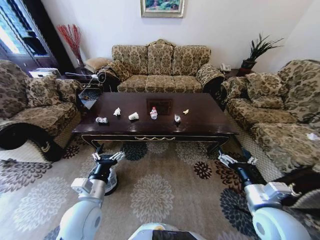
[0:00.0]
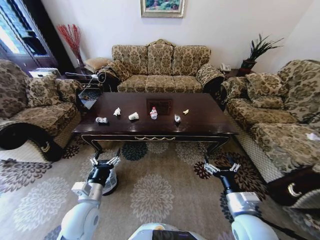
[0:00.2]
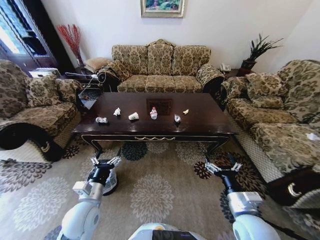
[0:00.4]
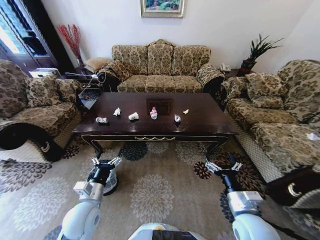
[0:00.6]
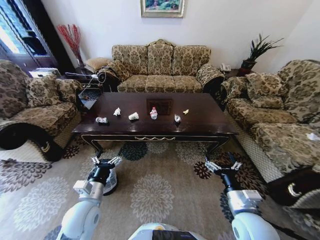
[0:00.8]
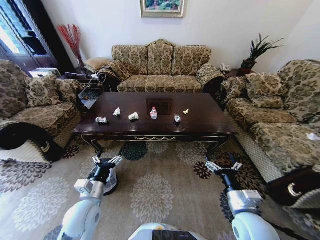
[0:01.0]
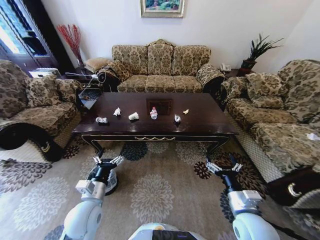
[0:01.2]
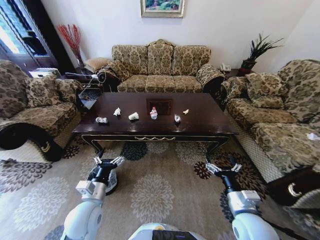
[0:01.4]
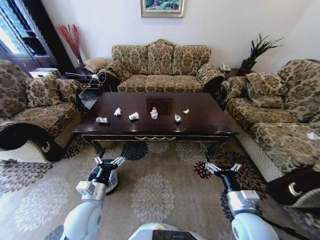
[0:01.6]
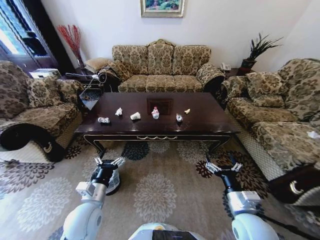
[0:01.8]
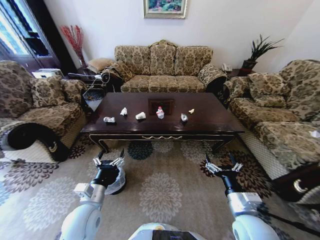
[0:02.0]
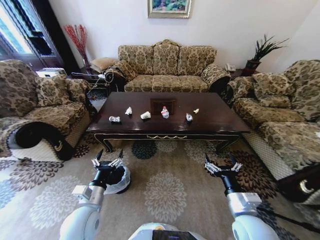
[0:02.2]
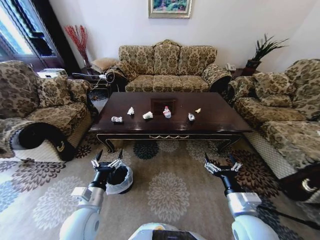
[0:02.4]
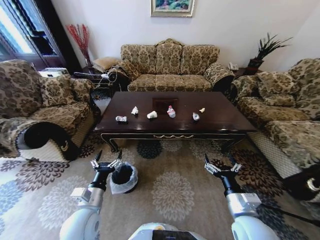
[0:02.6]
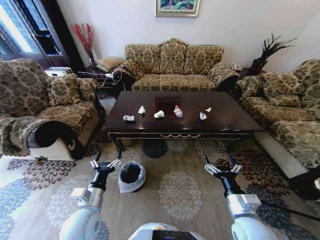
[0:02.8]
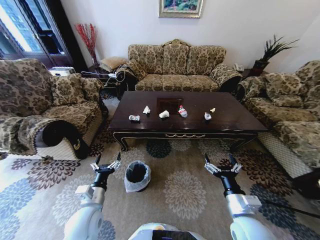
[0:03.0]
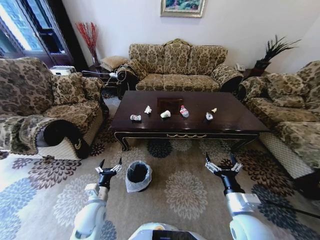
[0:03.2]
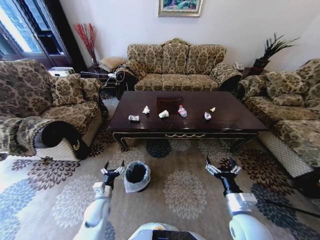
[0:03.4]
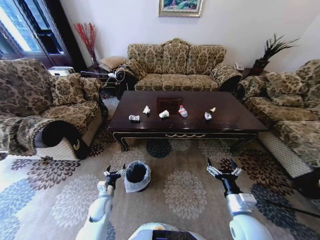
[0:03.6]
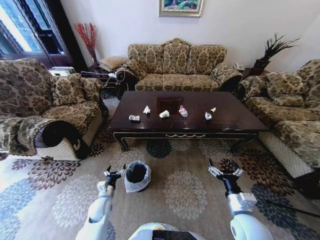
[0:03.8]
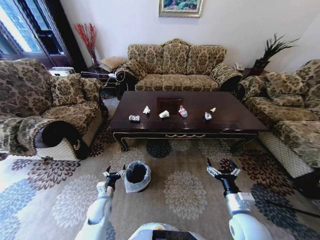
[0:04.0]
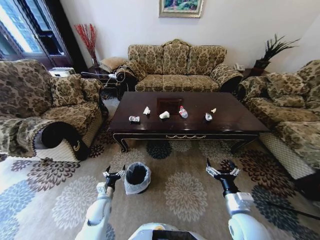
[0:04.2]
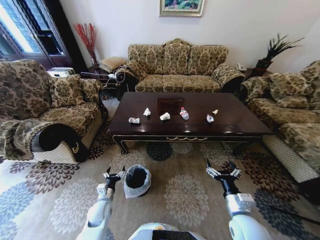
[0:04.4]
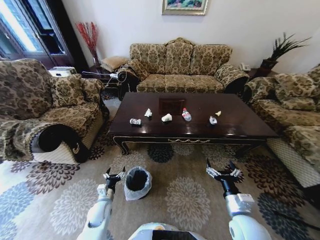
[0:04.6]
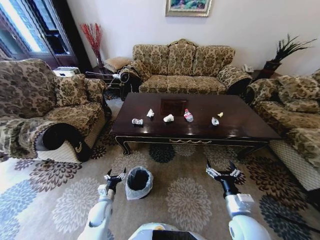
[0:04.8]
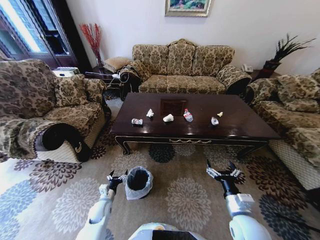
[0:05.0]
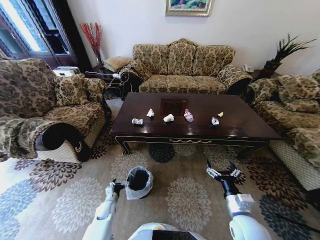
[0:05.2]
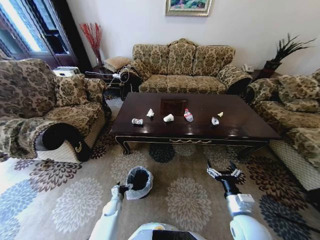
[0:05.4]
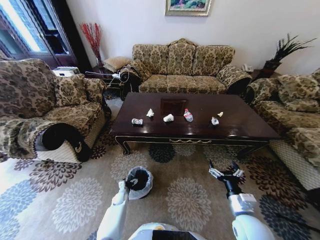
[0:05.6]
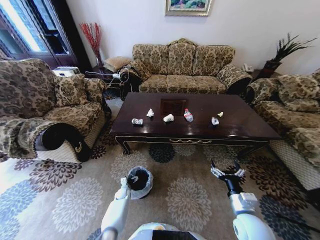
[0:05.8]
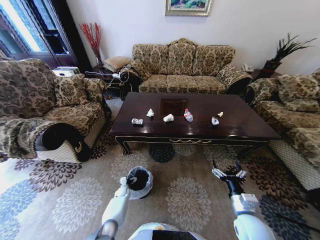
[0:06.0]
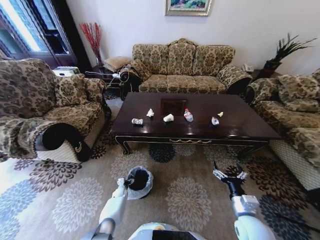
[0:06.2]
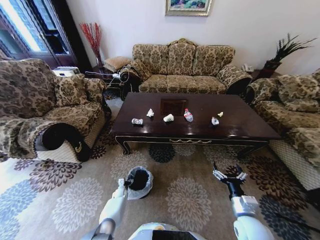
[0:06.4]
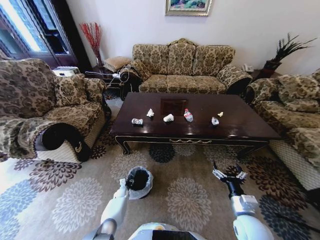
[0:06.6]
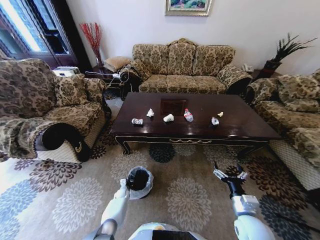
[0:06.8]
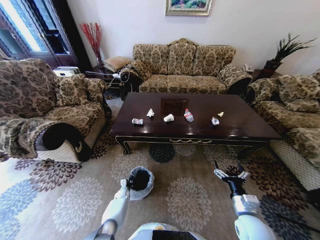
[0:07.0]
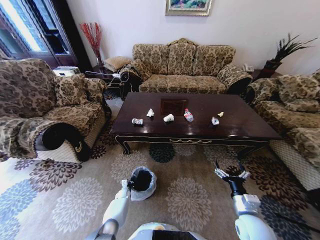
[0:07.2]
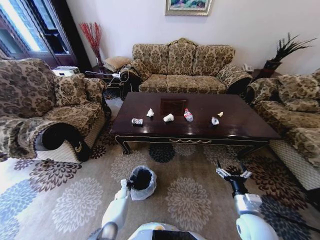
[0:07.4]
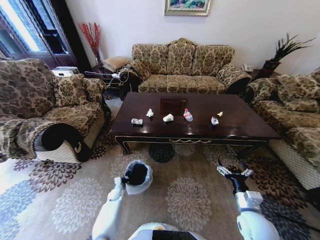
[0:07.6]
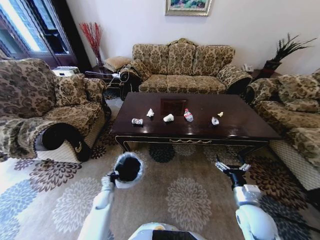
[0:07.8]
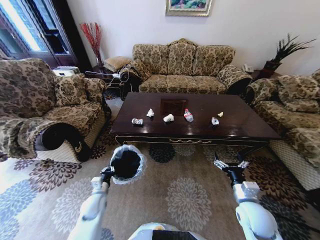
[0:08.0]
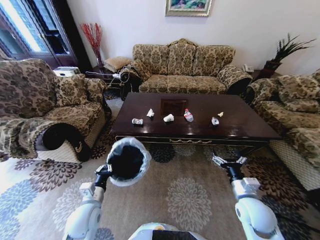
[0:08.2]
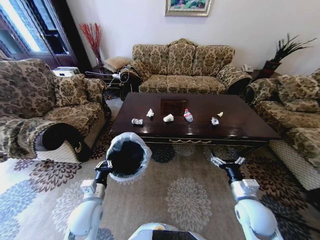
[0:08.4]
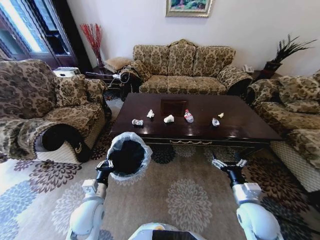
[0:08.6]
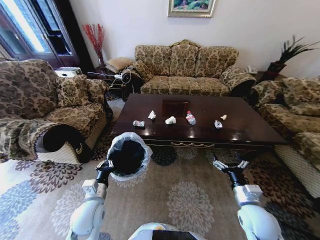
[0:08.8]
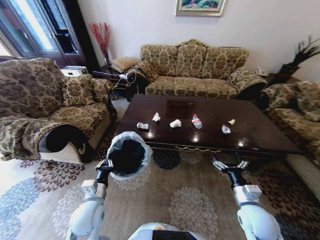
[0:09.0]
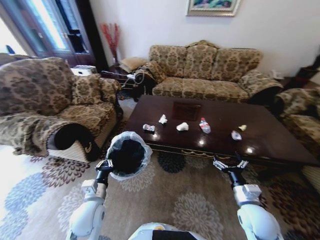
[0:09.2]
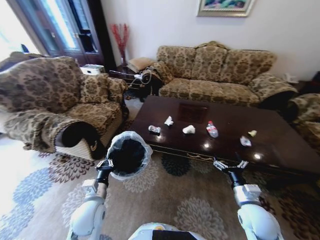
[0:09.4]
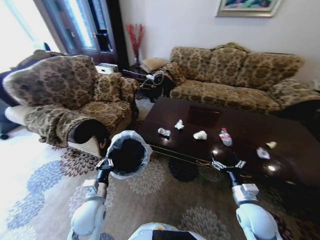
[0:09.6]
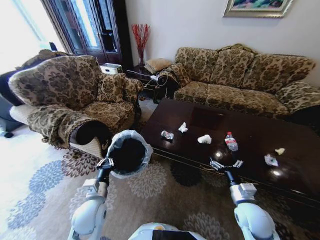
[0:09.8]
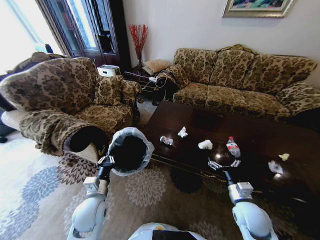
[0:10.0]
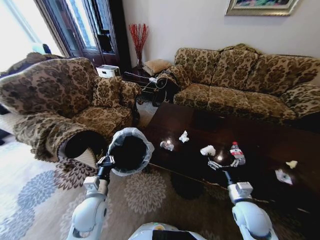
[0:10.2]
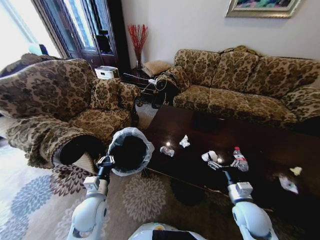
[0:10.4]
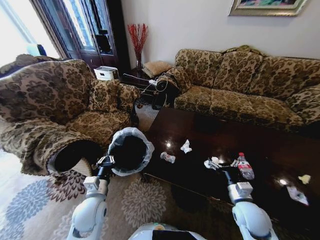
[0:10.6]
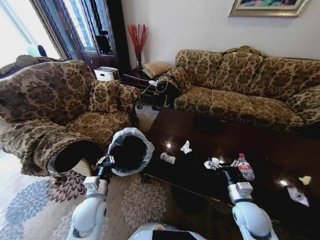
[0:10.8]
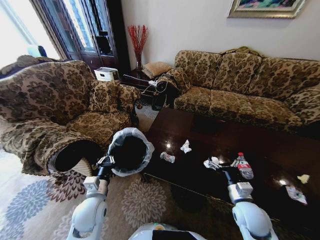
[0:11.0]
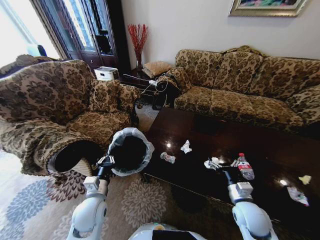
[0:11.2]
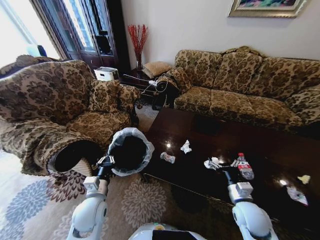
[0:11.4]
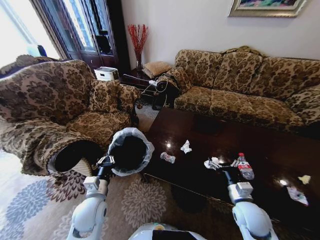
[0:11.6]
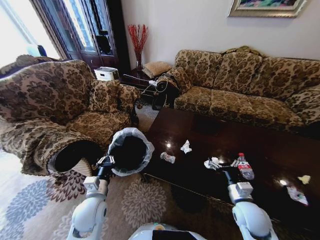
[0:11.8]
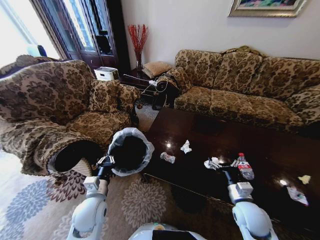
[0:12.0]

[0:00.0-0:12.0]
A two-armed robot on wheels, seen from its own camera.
Task of the whole recording: Move to the front of the table and place the trash on the table into the trash bin.
0:03.0 to 0:04.4: The left gripper shifts about 15 cm downward.
0:04.4 to 0:06.0: The left gripper goes about 25 cm downward and forward.
0:06.0 to 0:07.6: The left gripper changes place by some 5 cm, and closes its fingers.
0:07.6 to 0:09.0: The left gripper travels upward and backward by roughly 35 cm.
0:10.4 to 0:12.0: Neither gripper changes place.

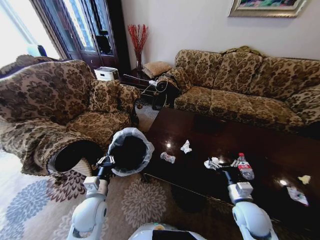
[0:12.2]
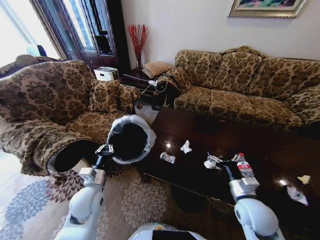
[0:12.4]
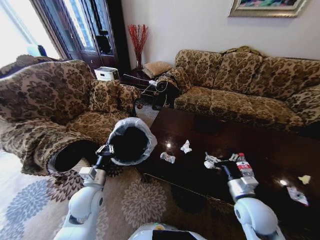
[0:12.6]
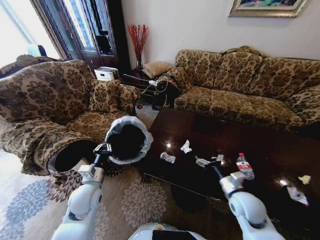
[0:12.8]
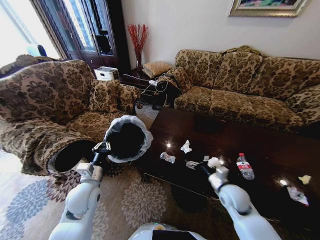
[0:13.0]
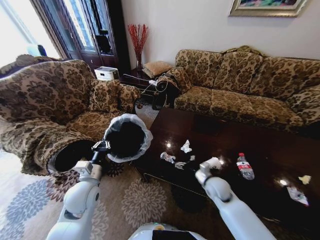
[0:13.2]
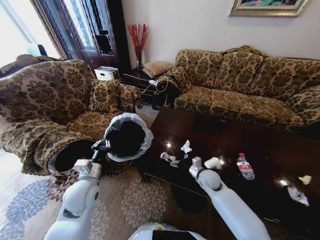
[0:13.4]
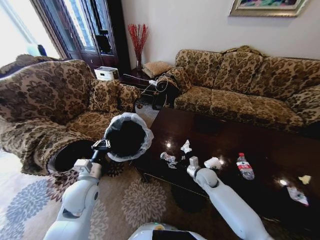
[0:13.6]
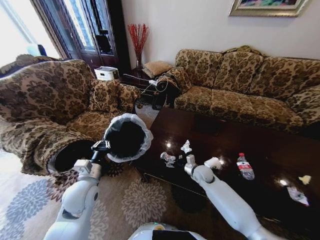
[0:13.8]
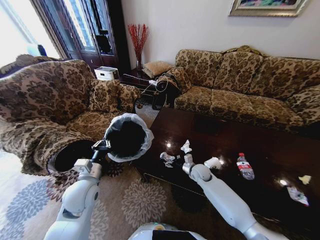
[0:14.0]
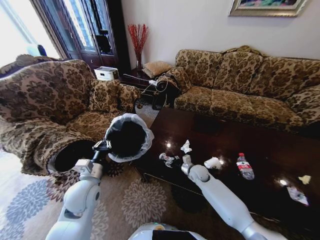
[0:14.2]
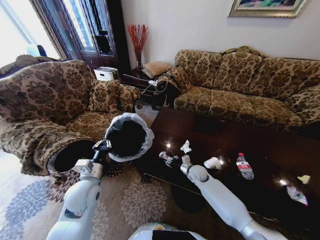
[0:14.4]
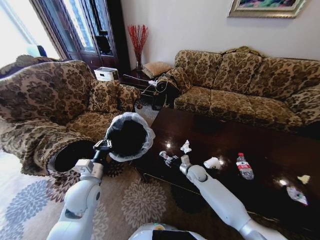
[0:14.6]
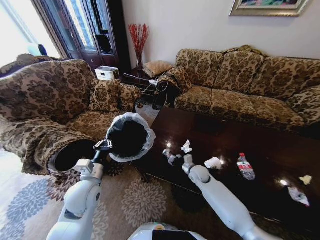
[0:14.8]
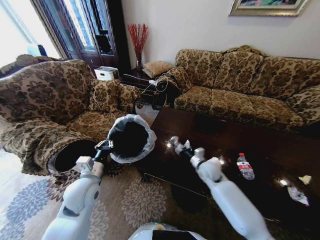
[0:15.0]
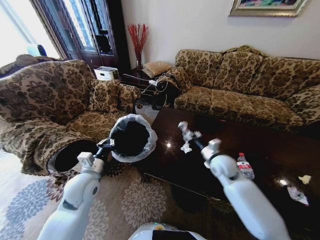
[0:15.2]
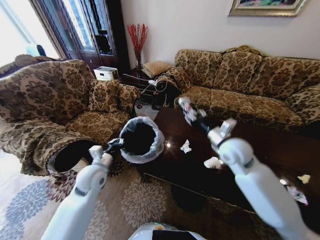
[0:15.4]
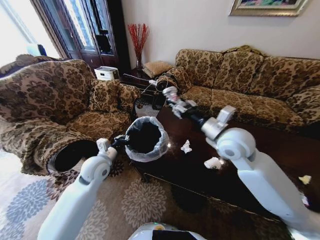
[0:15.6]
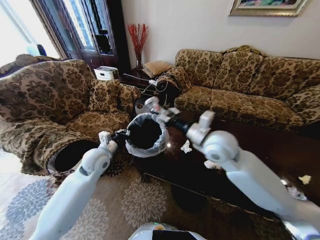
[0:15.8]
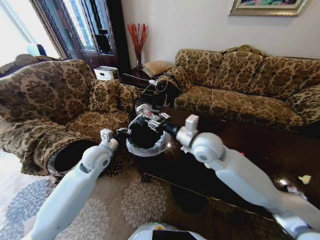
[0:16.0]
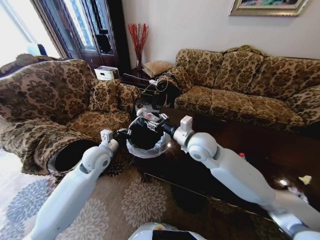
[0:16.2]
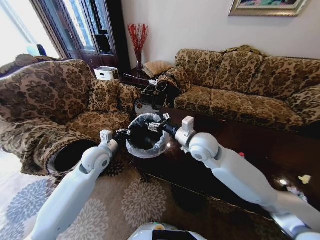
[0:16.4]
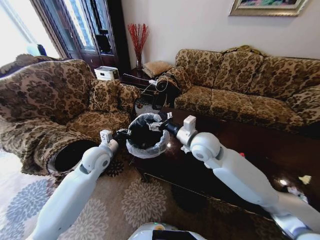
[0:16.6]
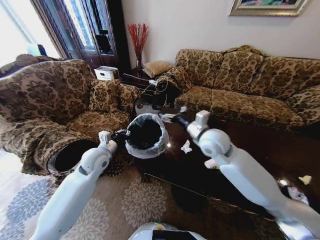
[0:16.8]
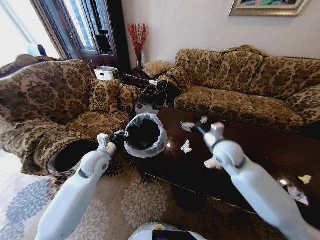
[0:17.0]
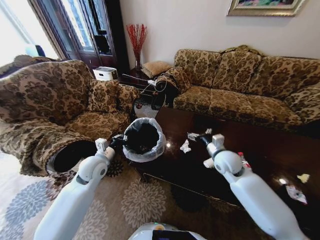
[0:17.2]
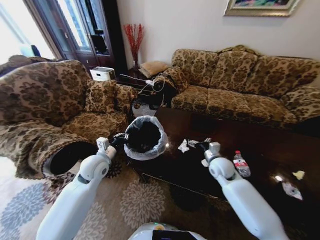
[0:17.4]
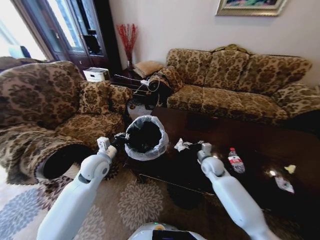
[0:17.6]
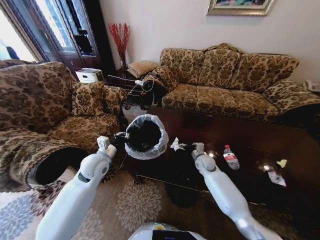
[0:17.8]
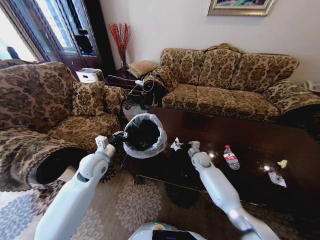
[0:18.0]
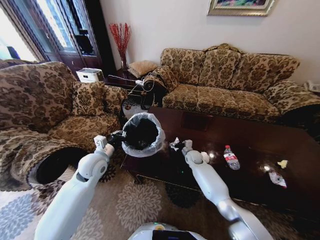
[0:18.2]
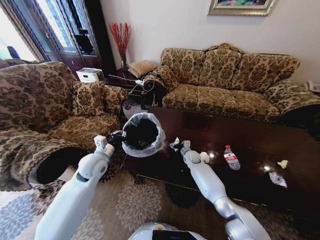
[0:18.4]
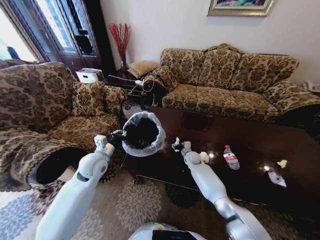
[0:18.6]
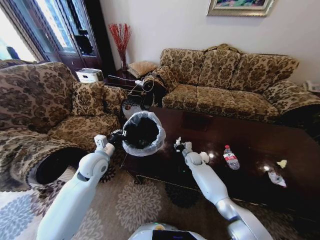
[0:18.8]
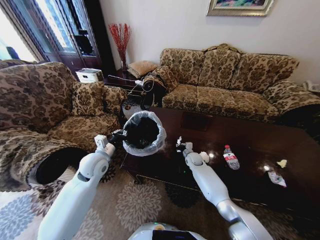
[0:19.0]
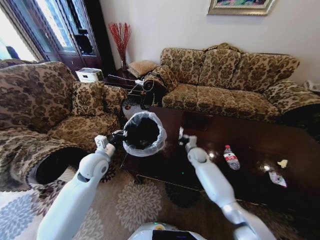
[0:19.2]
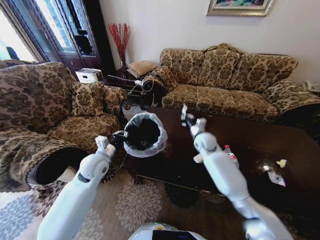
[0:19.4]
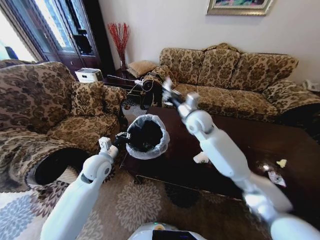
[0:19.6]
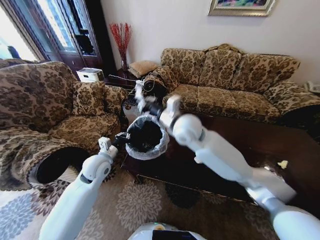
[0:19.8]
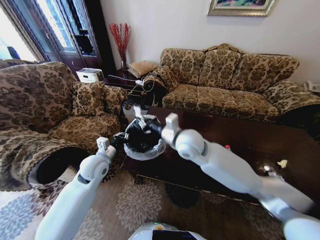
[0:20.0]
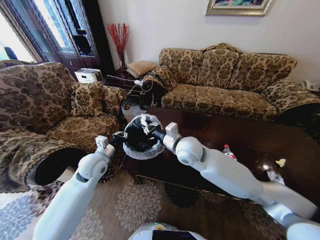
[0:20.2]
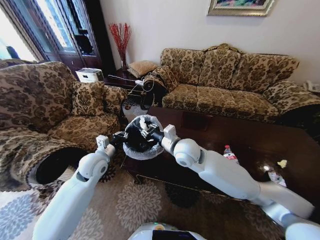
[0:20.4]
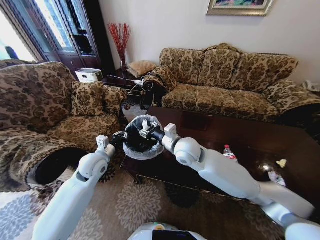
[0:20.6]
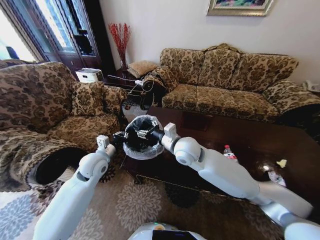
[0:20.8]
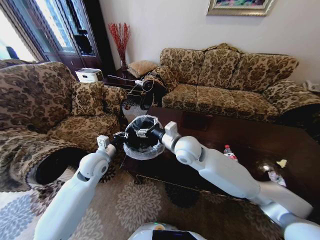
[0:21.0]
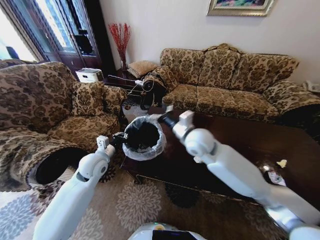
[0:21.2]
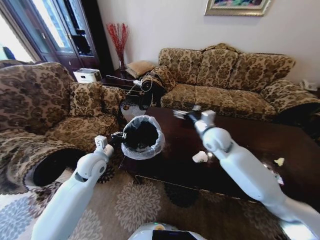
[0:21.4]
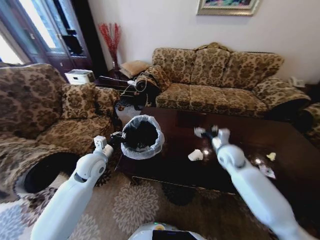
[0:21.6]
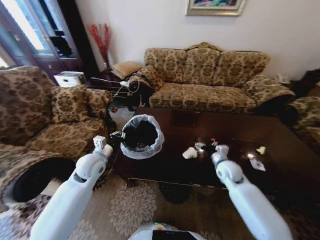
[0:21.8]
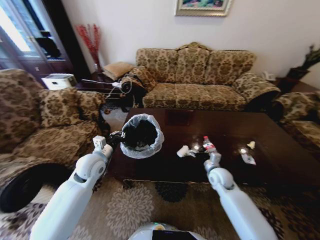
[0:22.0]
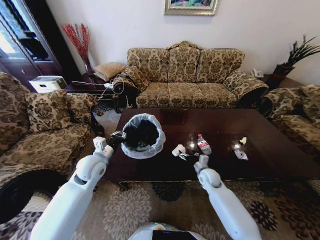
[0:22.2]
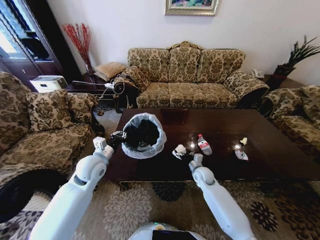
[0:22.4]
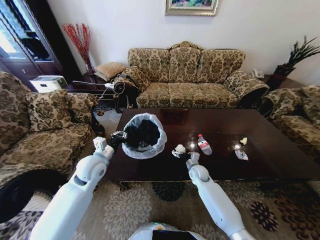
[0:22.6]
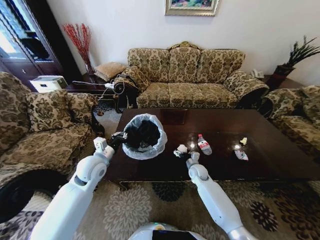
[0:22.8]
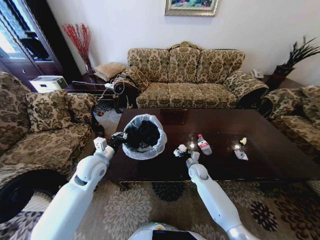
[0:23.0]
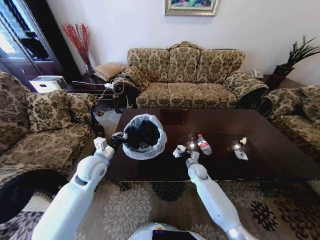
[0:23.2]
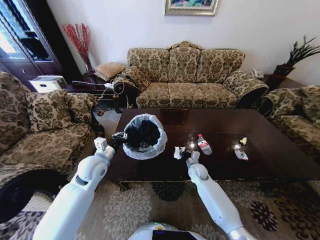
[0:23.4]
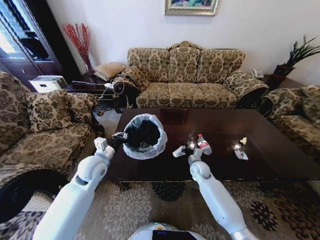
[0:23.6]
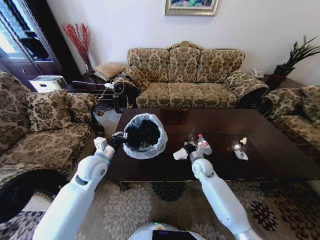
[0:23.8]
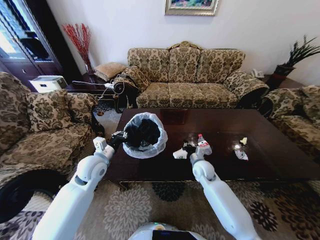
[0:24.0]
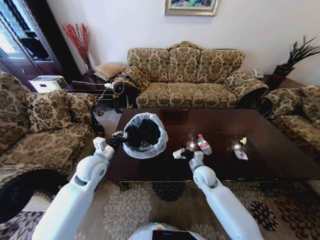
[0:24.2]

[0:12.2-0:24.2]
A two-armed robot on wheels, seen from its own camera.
Task of the whole recording: Move to the front of the table and place the trash on the table into the trash bin.
0:12.2 to 0:13.8: The left gripper is displaced upward by roughly 5 cm. Meanwhile the right gripper travels forward, to the left and downward by roughly 20 cm.
0:13.8 to 0:15.2: The right gripper heads upward, covering some 15 cm, and closes its fingers.
0:15.2 to 0:16.6: The left gripper heads forward, covering some 10 cm. The right gripper shifts about 20 cm upward and to the left, and opens its fingers.
0:16.6 to 0:18.2: The right gripper heads downward and forward, covering approximately 30 cm.
0:18.2 to 0:19.8: The right gripper shifts about 35 cm upward, and closes up.
0:19.8 to 0:21.2: The right gripper is displaced downward by approximately 5 cm, and opens.
0:21.2 to 0:22.6: The right gripper is displaced downward by approximately 30 cm.
0:22.6 to 0:24.2: The right gripper shifts approximately 5 cm upward, and closes.
